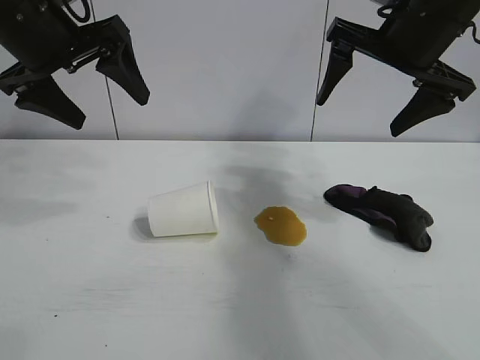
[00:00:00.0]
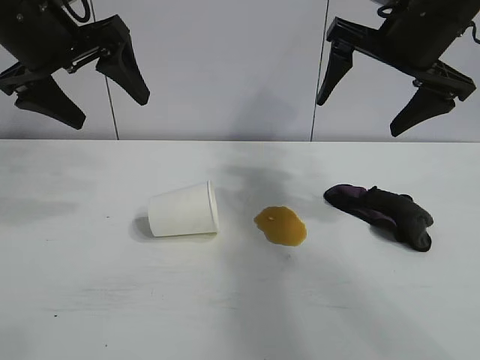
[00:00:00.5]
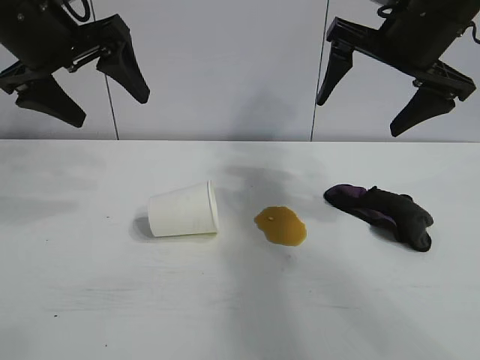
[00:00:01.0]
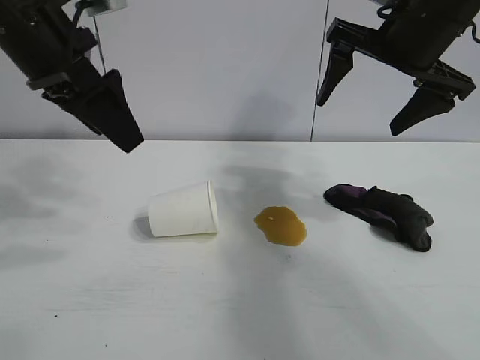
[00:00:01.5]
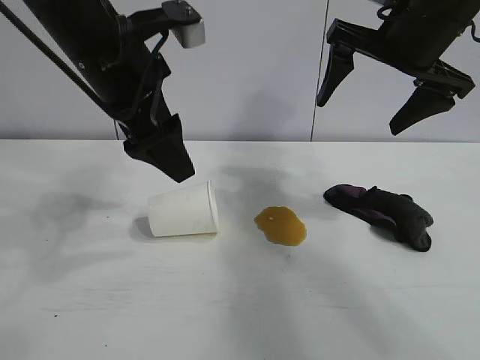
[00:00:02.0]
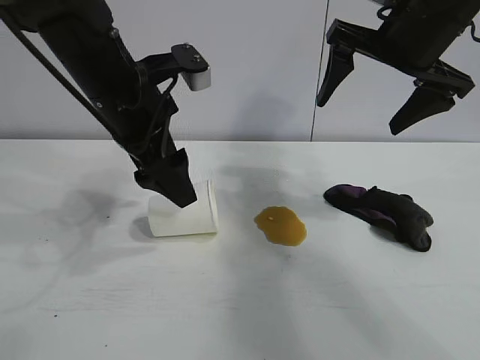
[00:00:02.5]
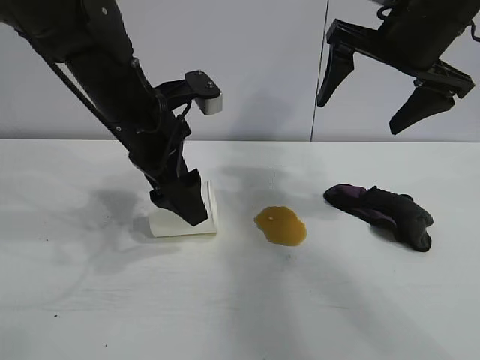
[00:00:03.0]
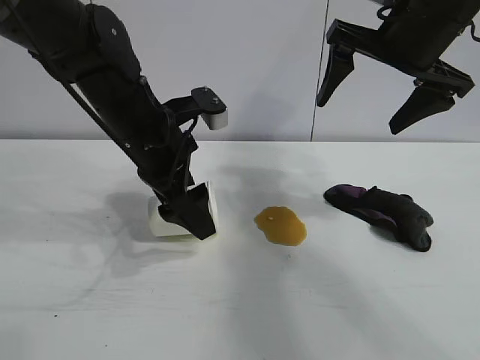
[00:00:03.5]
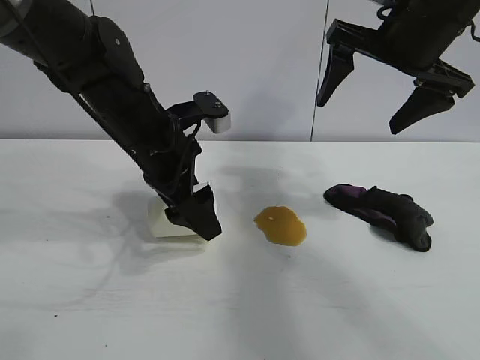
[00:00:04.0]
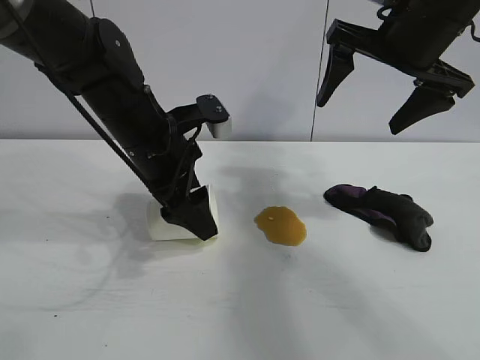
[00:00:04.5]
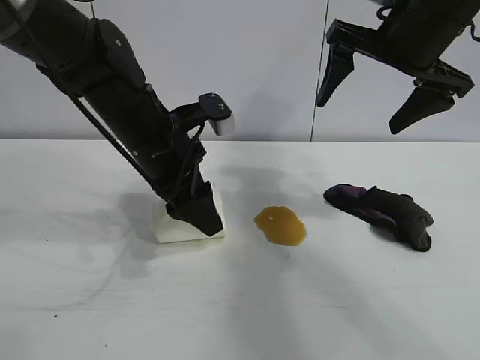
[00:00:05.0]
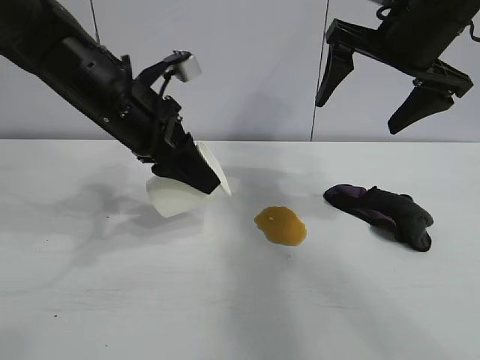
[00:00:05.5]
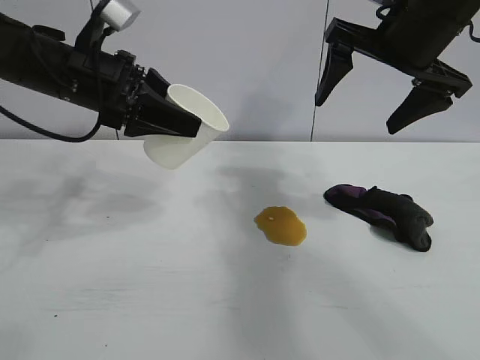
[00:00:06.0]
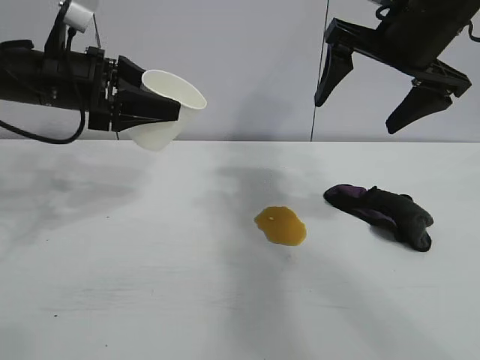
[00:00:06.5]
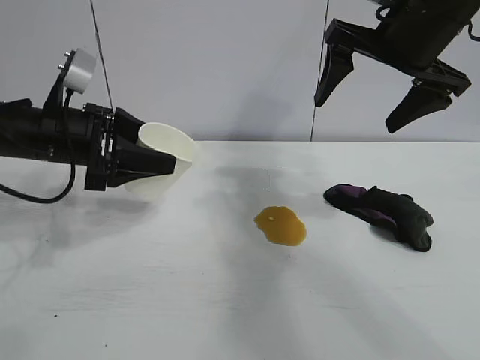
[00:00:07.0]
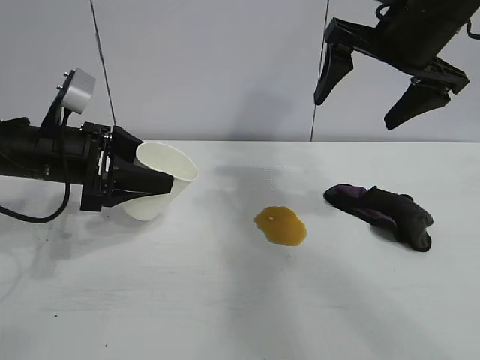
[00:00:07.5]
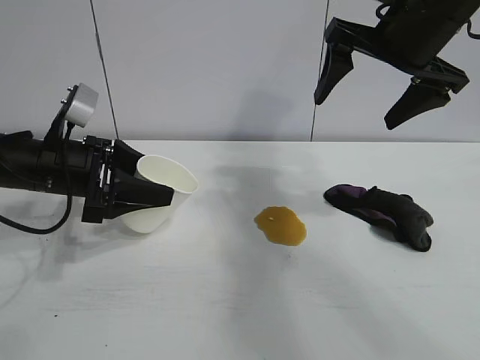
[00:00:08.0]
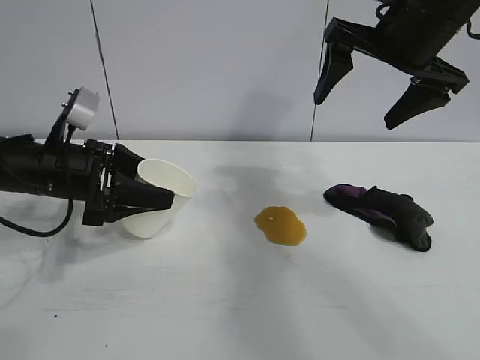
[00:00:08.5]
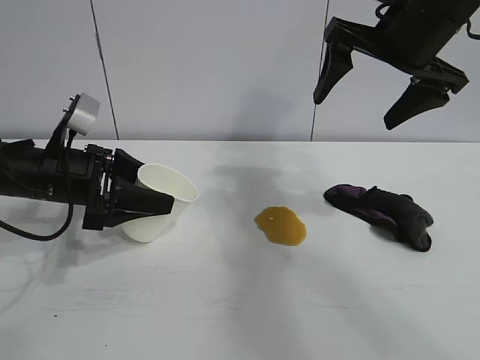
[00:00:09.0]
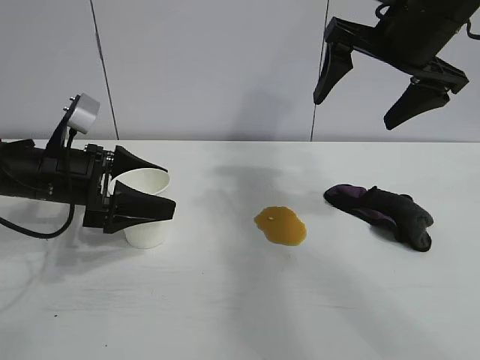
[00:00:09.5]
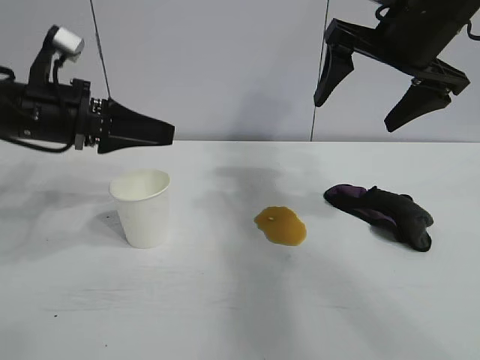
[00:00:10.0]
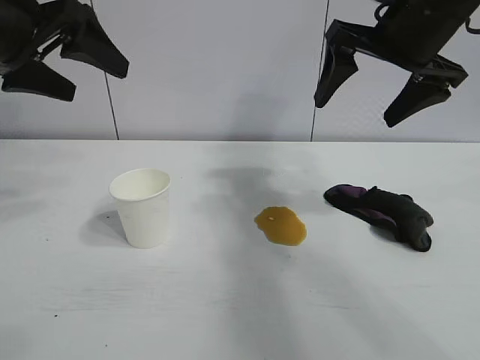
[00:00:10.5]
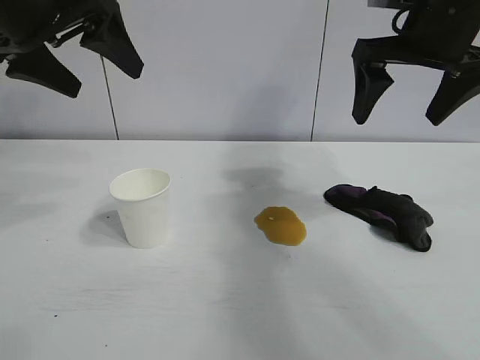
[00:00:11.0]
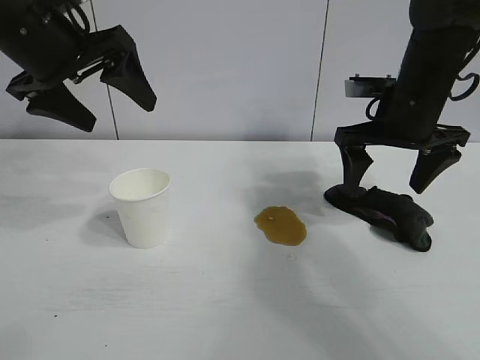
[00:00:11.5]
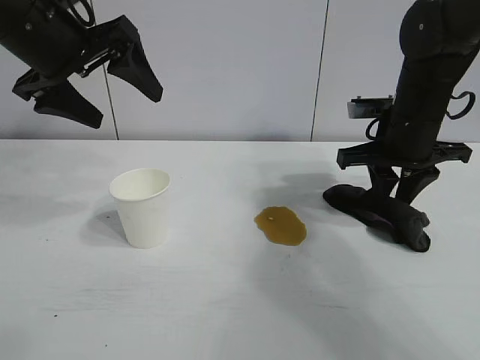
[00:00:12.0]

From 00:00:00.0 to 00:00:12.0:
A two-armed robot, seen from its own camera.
Task of the whole recording: the left gripper pick up the fallen cup and place it upright, the right gripper grasp the black rag and wipe the stain on the table, the right gripper put the black rag back in its original position.
Step, from 00:00:01.5 to 00:00:04.5: Grasp the paper cup with left gripper.
Step, from 00:00:05.0 to 00:00:09.5: Stand the paper cup upright with left gripper.

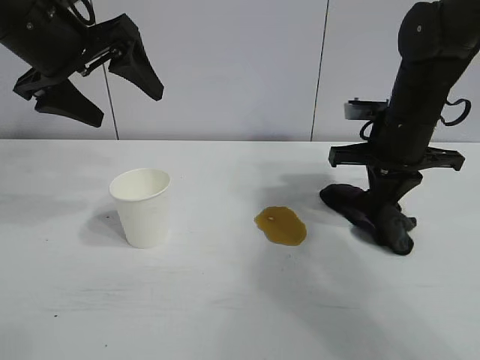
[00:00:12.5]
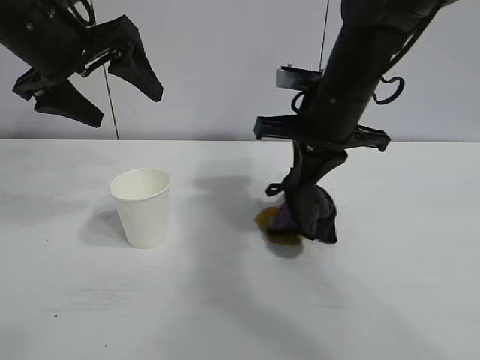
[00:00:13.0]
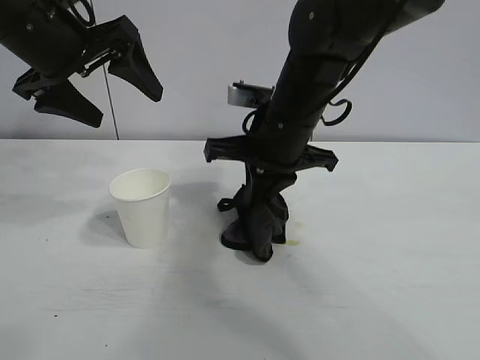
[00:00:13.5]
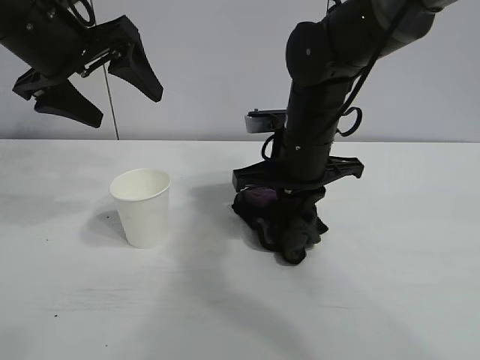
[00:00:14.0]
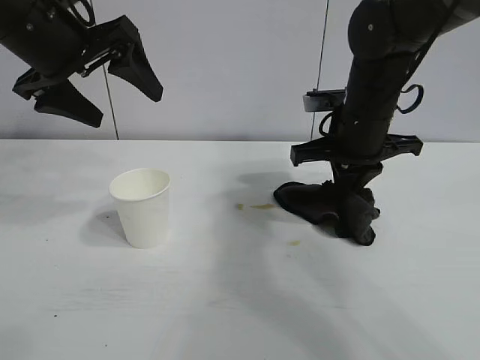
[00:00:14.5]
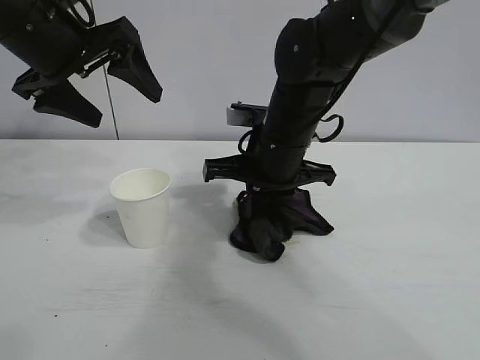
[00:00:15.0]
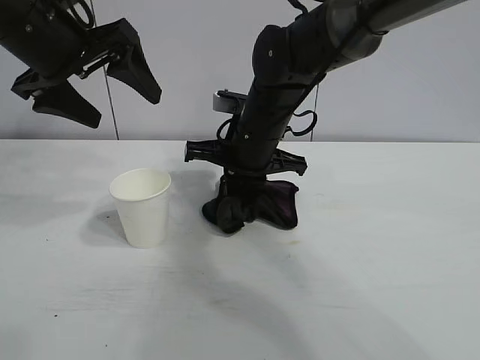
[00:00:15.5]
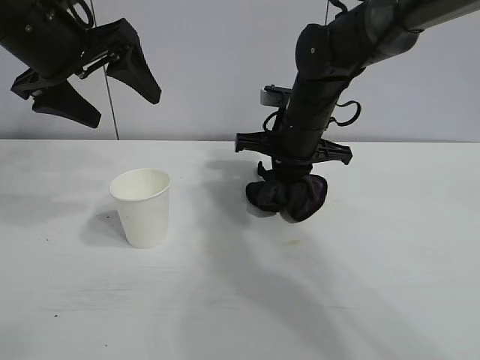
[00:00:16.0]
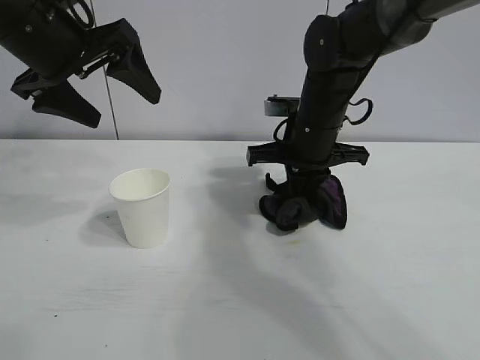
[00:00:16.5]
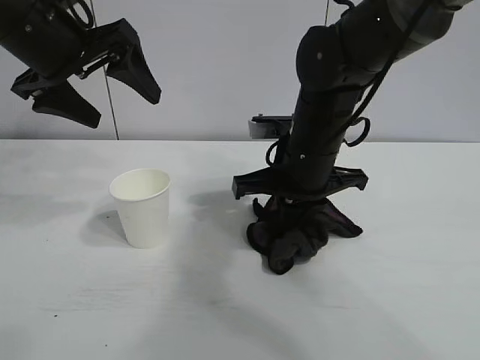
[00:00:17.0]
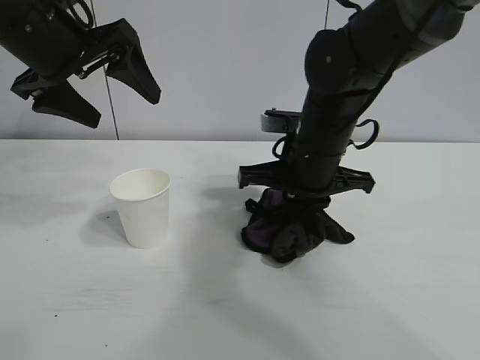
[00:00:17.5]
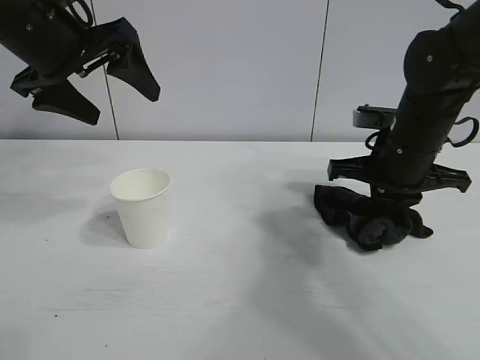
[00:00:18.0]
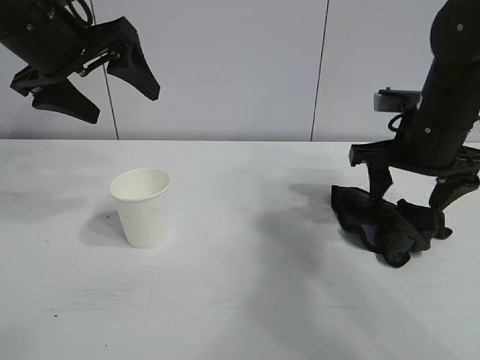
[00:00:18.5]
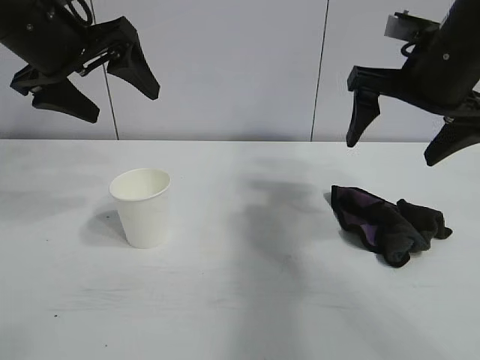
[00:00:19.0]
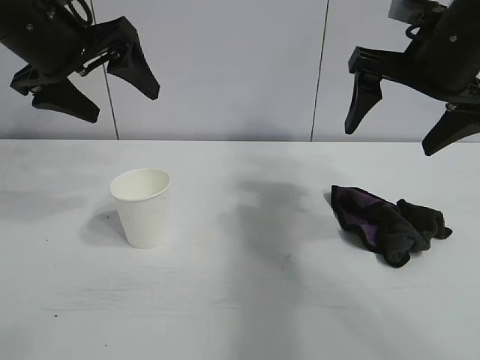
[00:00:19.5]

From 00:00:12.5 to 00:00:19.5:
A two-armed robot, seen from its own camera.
Task of the whole recording: the left gripper pick up the fallen cup and place it upright, the right gripper grasp the black rag and wipe the stain on the table, the right gripper put the black rag back in its original position.
Step, from 00:00:13.0 to 00:00:18.0: Wipe the stains off the table with the rag with right gripper.
